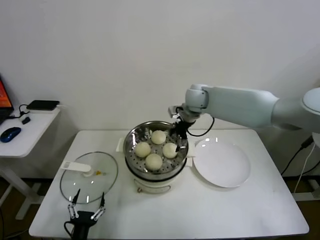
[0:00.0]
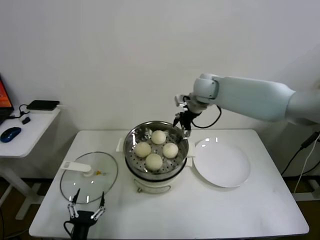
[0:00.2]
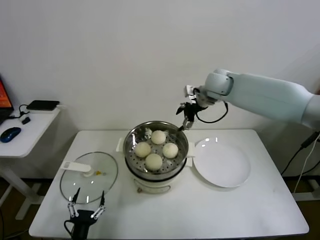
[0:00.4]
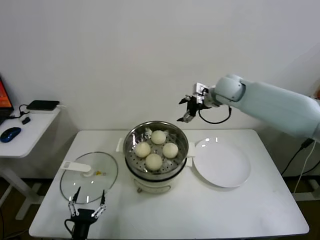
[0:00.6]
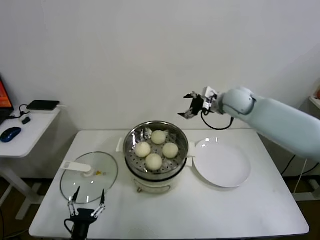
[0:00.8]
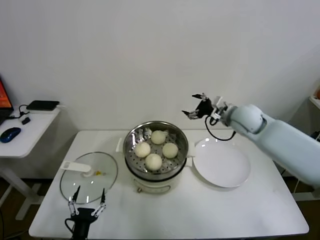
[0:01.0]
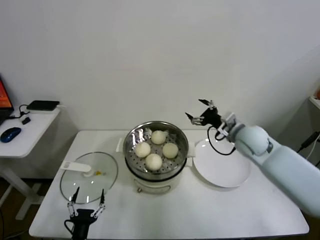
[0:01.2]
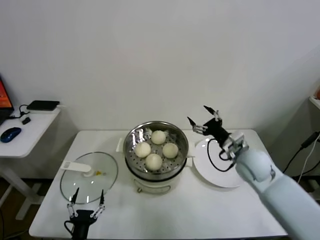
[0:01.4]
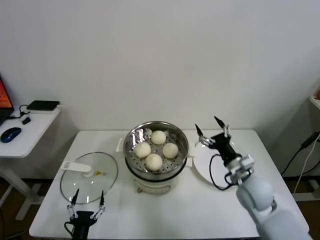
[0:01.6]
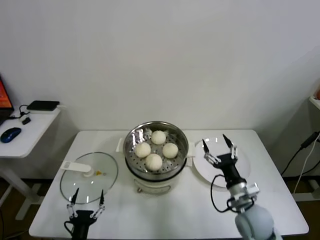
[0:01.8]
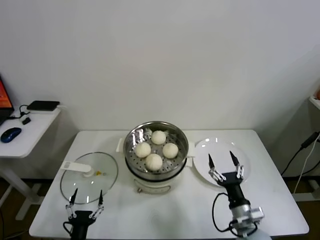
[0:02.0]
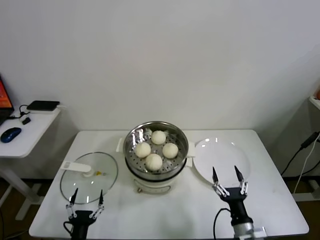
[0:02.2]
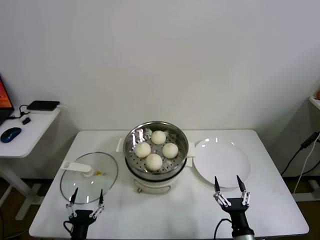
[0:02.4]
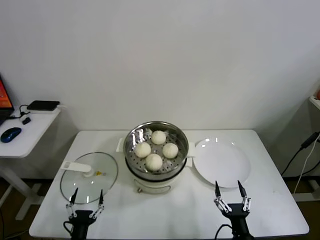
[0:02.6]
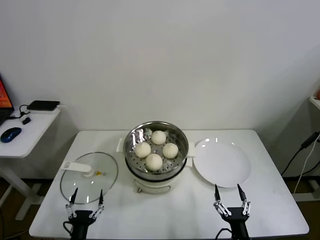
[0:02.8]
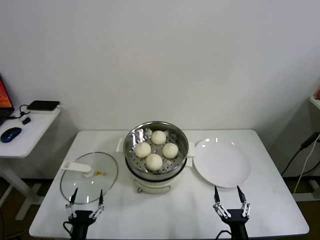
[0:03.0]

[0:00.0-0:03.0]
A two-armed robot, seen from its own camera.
Task of the whole recording: take steamed baozi put them in steamer.
0:00.0 to 0:01.6: The right gripper shifts roughly 30 cm backward, downward and to the right.
0:01.6 to 0:03.0: The right gripper goes roughly 30 cm backward and downward.

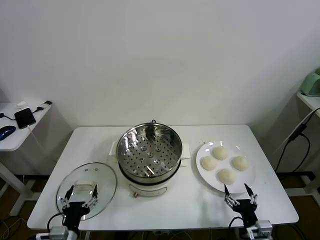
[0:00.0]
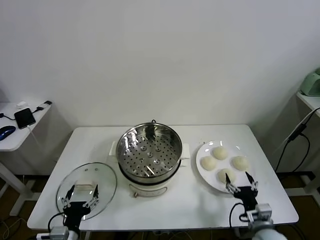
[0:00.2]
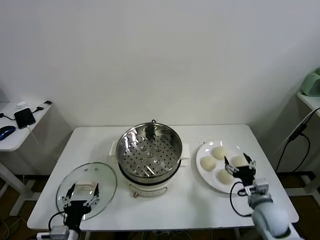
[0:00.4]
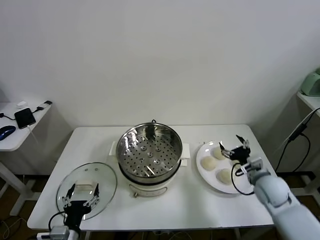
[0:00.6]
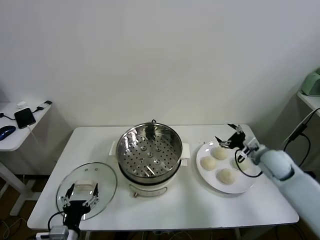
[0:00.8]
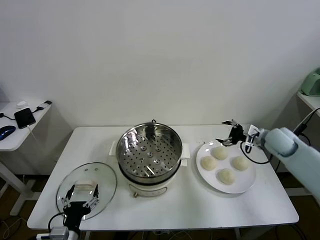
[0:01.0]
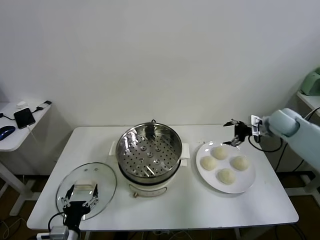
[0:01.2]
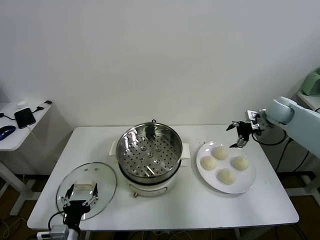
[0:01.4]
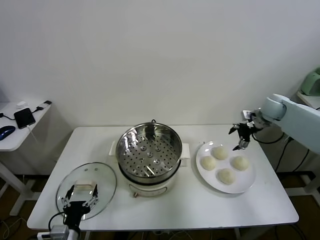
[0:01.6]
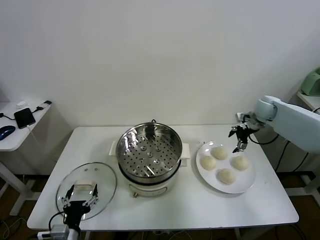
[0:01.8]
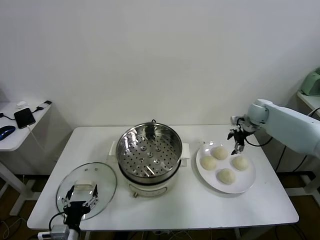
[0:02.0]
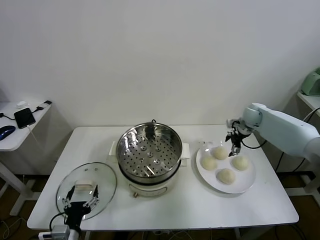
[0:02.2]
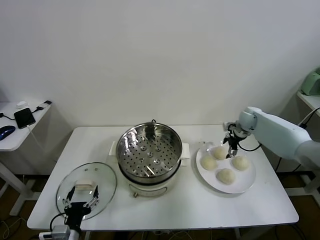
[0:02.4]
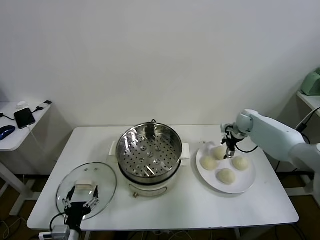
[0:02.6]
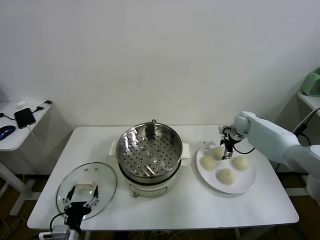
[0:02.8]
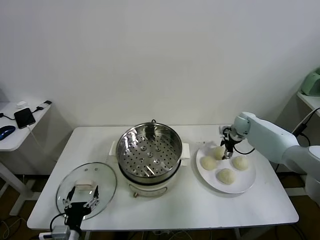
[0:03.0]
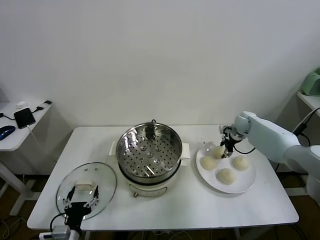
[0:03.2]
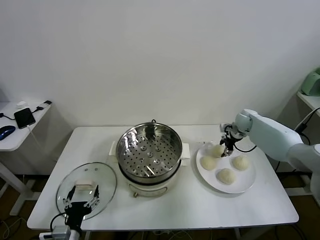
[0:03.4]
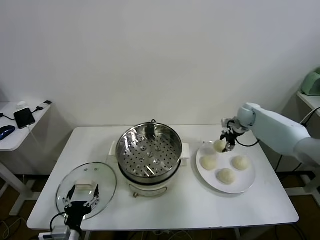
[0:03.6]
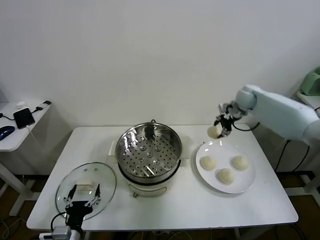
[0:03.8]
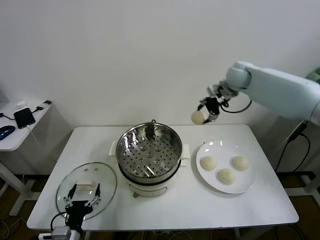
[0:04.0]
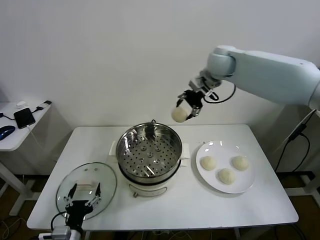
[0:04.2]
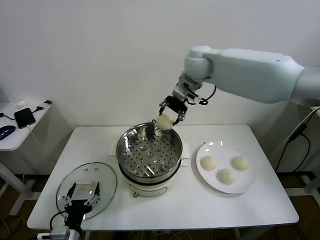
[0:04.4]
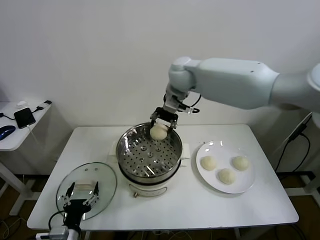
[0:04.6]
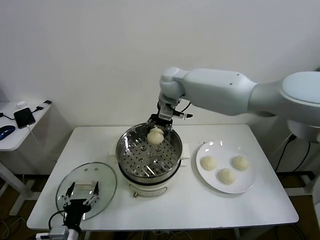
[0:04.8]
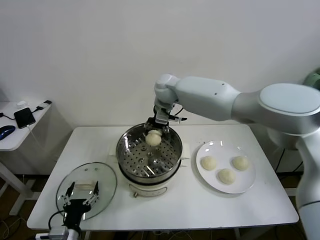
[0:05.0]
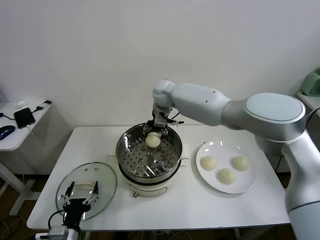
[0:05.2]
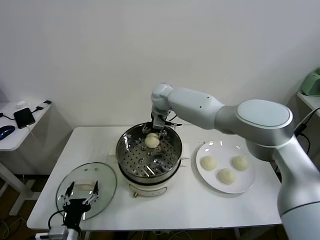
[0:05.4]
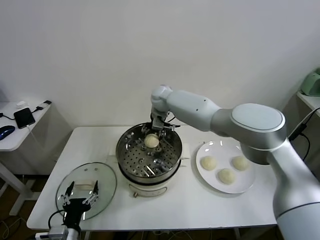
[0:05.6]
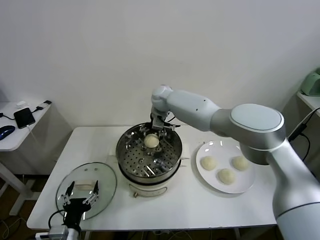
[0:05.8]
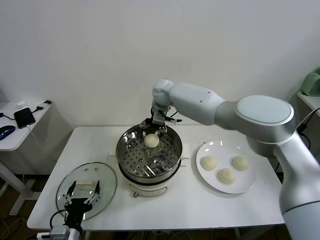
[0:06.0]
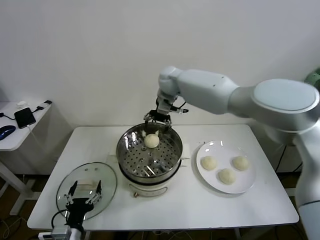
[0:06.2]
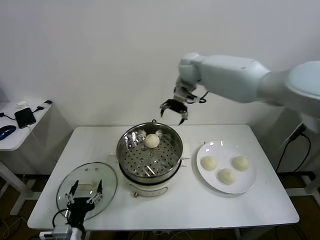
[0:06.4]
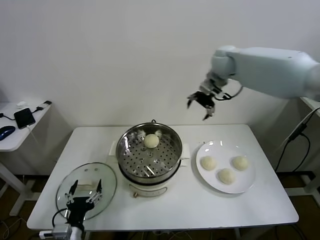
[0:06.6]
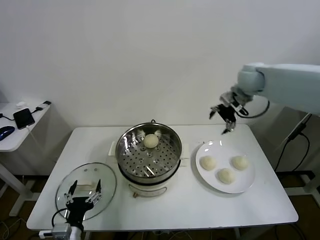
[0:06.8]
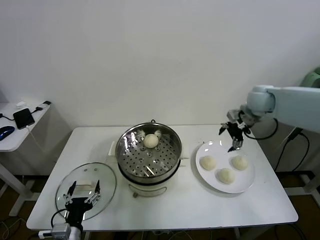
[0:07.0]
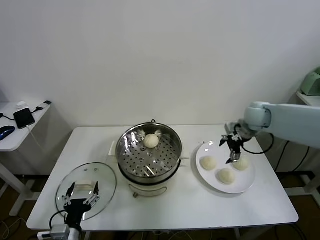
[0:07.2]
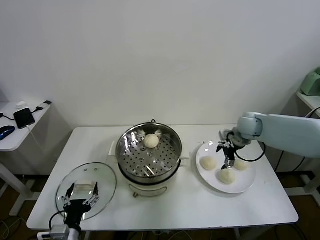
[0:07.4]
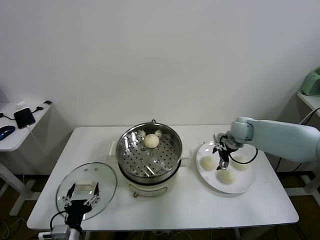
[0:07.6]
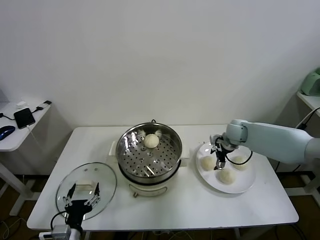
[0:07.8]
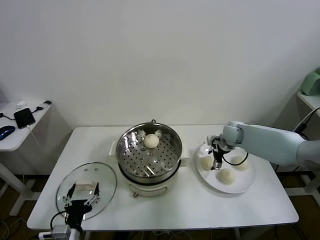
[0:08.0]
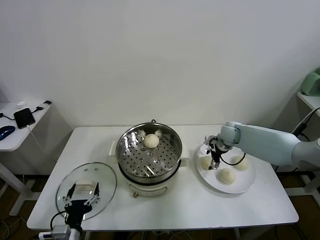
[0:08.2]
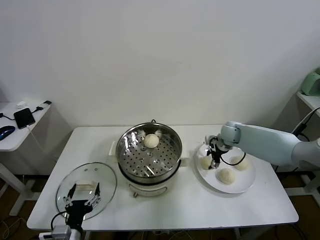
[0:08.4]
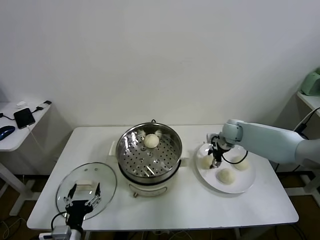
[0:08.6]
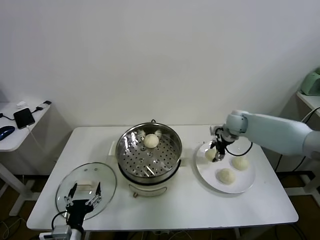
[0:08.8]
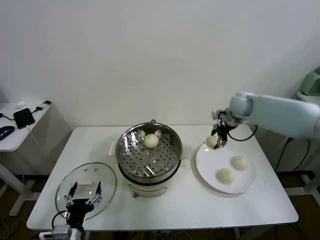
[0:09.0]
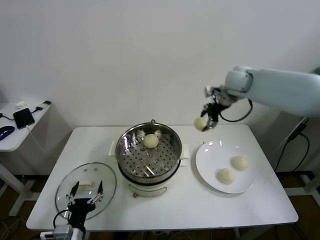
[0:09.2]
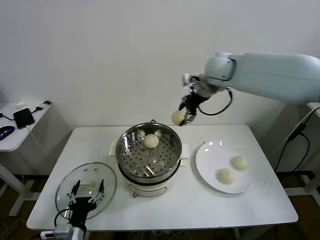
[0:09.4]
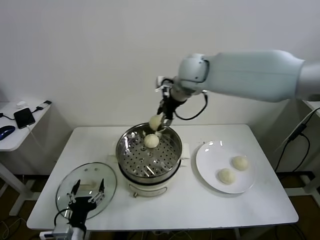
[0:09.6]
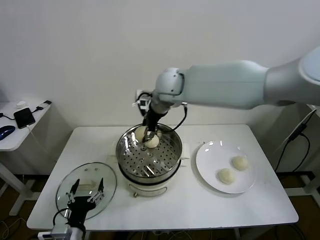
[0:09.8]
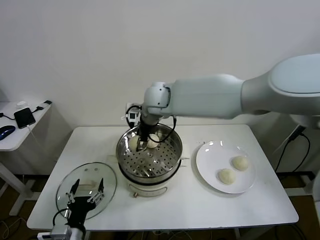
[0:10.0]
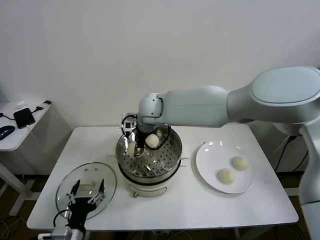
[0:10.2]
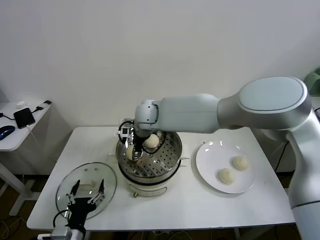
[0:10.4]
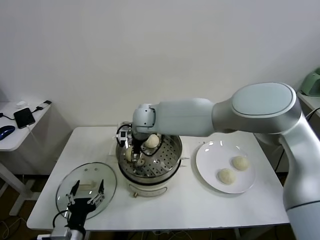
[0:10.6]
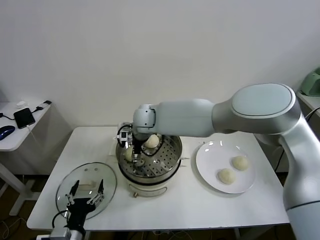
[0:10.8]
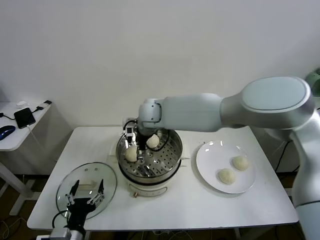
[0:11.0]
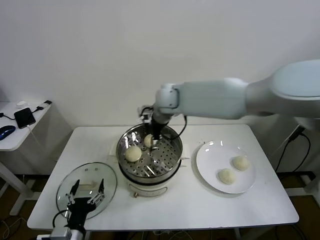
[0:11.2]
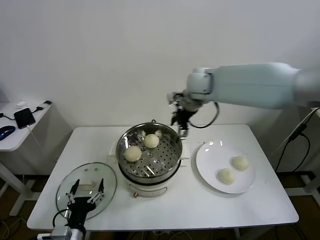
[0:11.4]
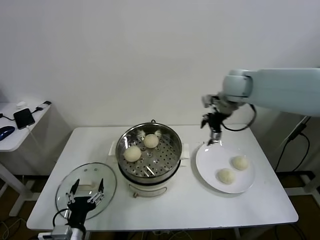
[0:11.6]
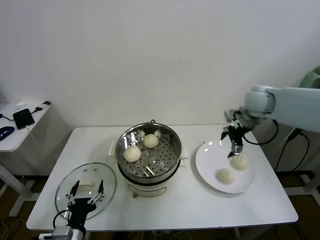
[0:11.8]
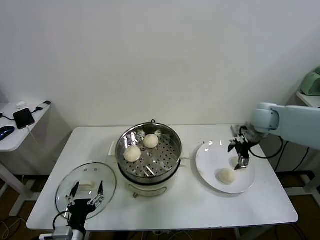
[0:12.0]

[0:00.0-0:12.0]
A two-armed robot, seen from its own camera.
Task of the whole recording: take steamed baozi put them in steamer.
Step, 0:00.0 to 0:03.0: Grasp the baozi in the plate with right gripper.
Step, 0:03.2 to 0:05.8: Place the baozi on the steamer with right gripper.
Step, 0:06.0 to 0:08.4: Grasp the baozi in the plate with right gripper.
Step, 0:08.6 to 0:10.8: Place the baozi on the steamer with right gripper.
0:01.6 to 0:03.0: The right gripper is displaced downward and to the left by roughly 15 cm.
0:03.0 to 0:04.4: The right gripper shifts approximately 40 cm upward and to the left, and closes its fingers.
0:04.4 to 0:06.0: The right gripper goes roughly 15 cm downward, to the left and forward, and opens.
0:06.0 to 0:07.6: The right gripper is displaced to the right and downward by approximately 30 cm.
0:07.6 to 0:09.0: The right gripper shifts roughly 10 cm upward, and closes its fingers.
0:09.0 to 0:10.4: The right gripper travels to the left by some 35 cm.
0:10.4 to 0:12.0: The right gripper is displaced to the right by approximately 40 cm, and opens up.

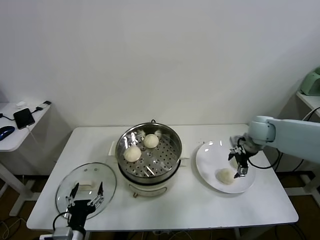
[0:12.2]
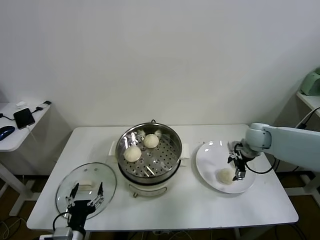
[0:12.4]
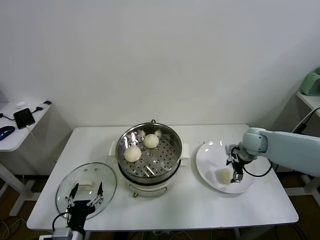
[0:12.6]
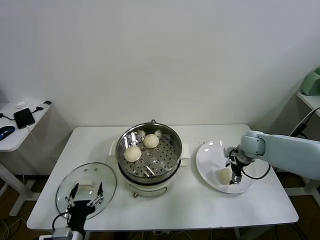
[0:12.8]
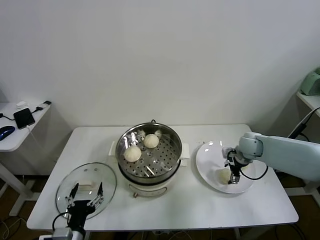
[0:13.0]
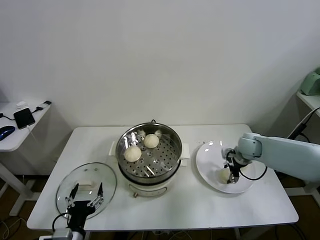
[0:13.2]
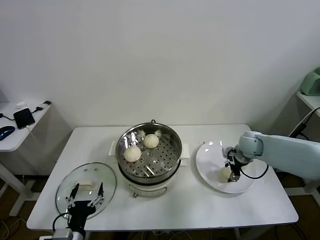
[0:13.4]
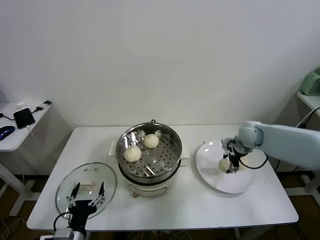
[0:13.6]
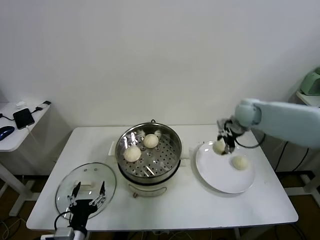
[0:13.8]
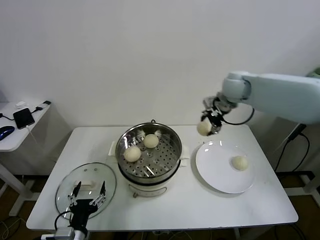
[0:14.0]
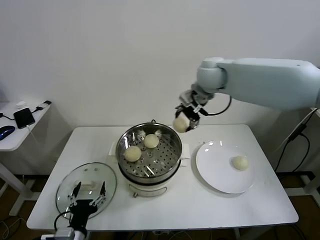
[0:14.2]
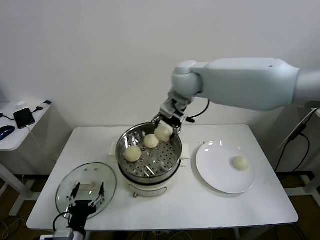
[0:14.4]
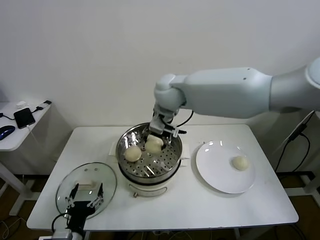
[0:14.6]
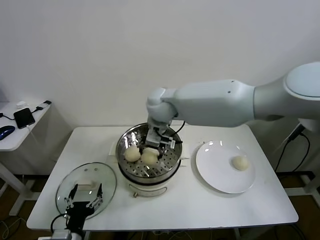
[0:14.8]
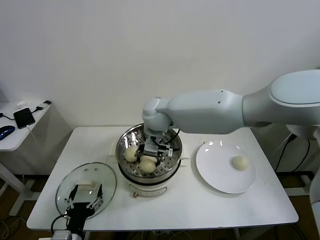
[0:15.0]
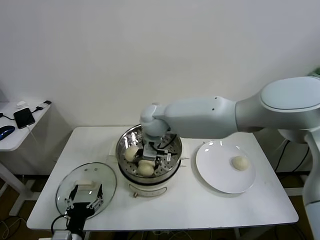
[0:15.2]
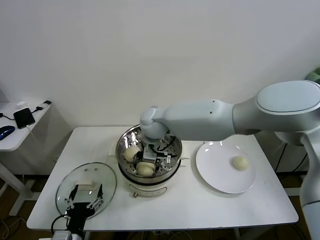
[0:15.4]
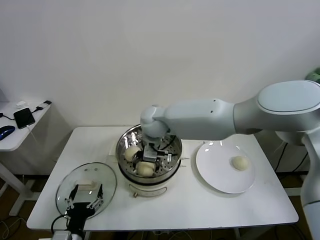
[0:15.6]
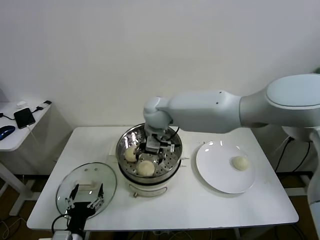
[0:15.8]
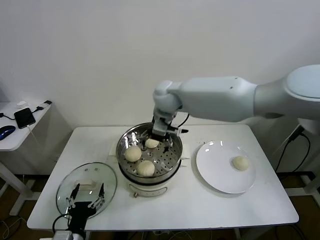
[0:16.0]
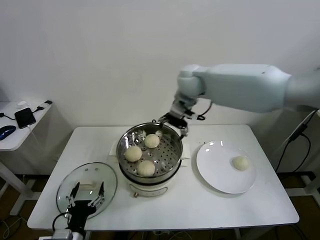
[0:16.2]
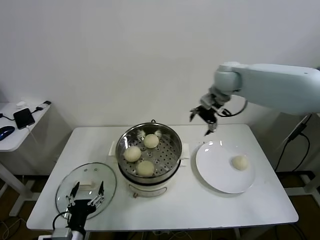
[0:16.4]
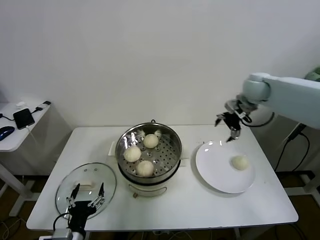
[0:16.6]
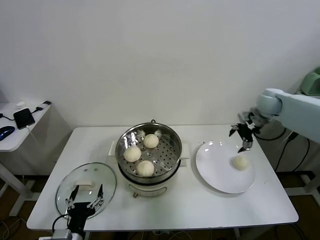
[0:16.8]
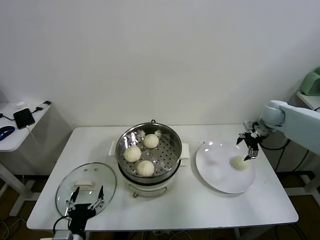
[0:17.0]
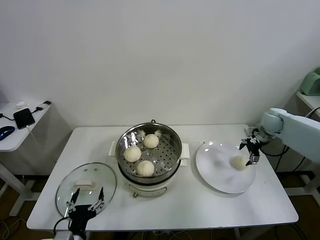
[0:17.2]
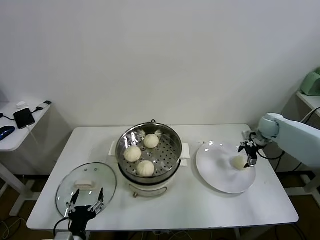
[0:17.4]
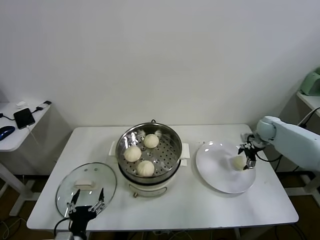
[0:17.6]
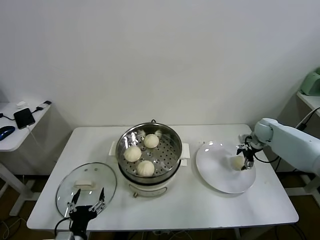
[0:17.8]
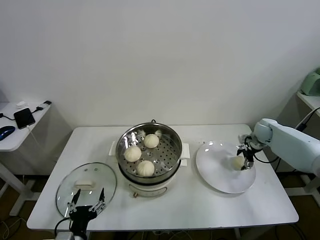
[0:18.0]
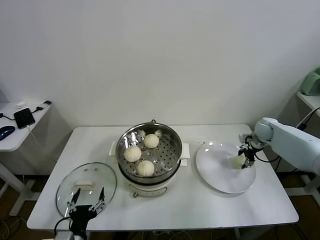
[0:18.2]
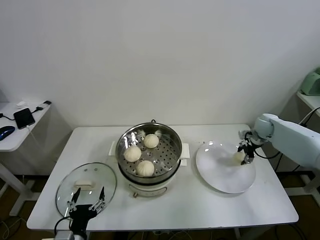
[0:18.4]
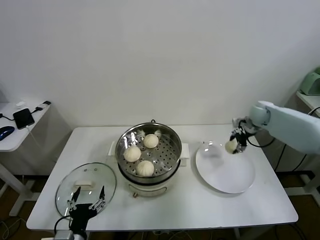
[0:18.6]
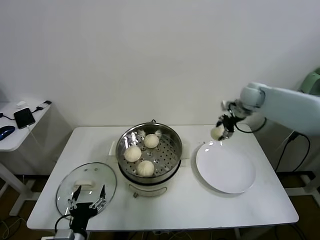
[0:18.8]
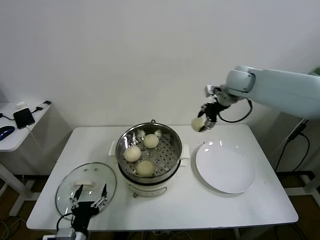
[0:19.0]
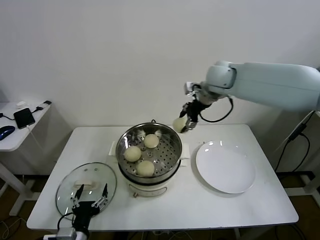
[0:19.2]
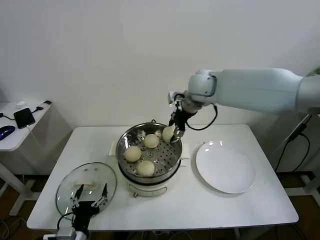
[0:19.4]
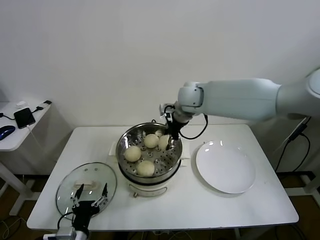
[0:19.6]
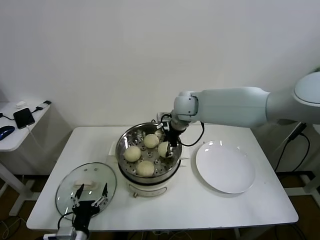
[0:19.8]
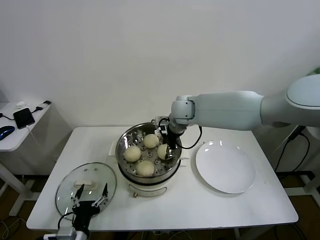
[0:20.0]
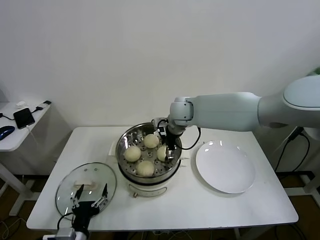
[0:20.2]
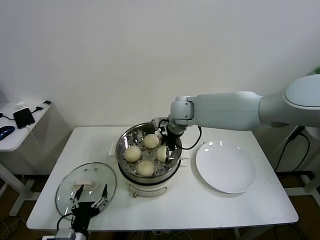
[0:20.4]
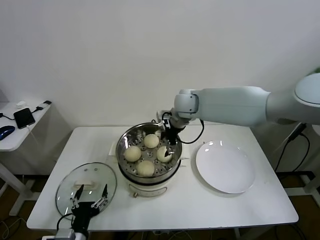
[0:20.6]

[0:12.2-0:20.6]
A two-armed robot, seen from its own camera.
Task of the whole recording: take steamed baozi put them in steamer.
Step, 0:13.4 to 0:15.4: Place the baozi on the steamer with right gripper.
Step, 0:15.6 to 0:18.0: Grasp the baozi in the plate with right gripper.
Step, 0:18.4 to 0:20.4: Place the baozi on the steamer with right gripper.
0:12.2 to 0:13.6: The right gripper closes its fingers.
0:13.6 to 0:15.0: The right gripper goes some 35 cm to the left.
0:15.0 to 0:16.4: The right gripper heads to the right, covering some 25 cm, and opens its fingers.
0:16.4 to 0:17.8: The right gripper heads downward and to the right, covering approximately 30 cm.
0:17.8 to 0:19.2: The right gripper moves to the left and upward, about 35 cm, and closes its fingers.
0:19.2 to 0:20.6: The right gripper shifts some 15 cm to the left and downward, and opens its fingers.
